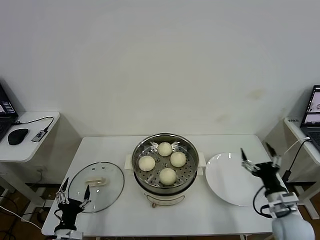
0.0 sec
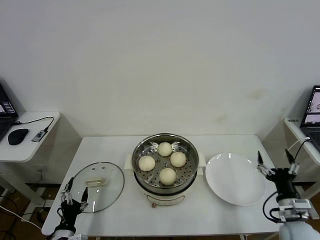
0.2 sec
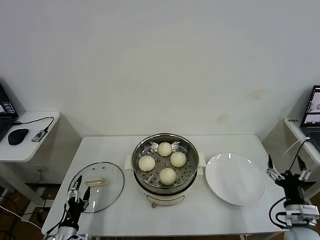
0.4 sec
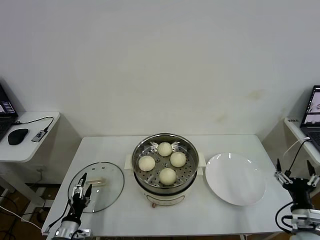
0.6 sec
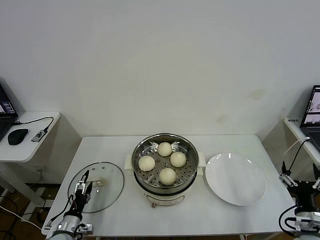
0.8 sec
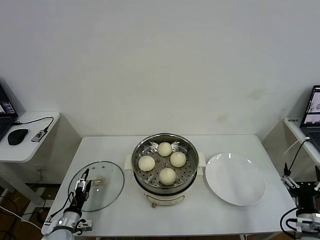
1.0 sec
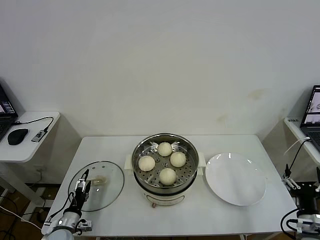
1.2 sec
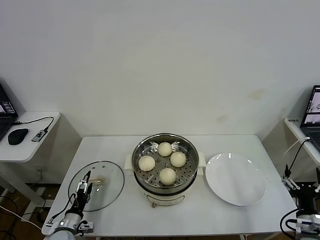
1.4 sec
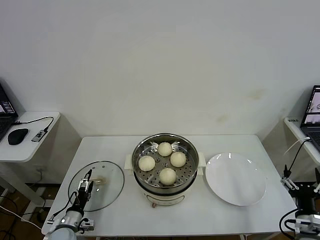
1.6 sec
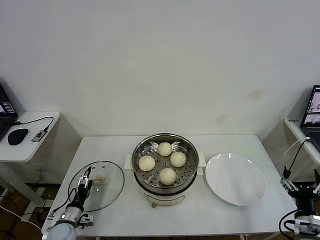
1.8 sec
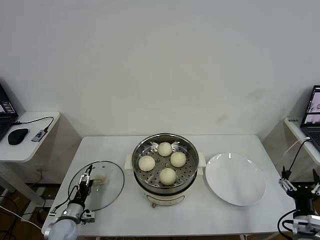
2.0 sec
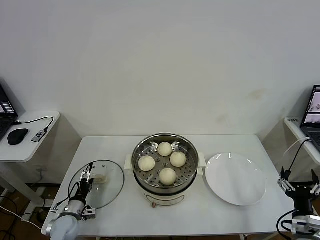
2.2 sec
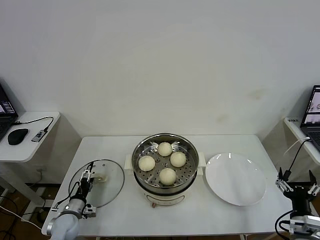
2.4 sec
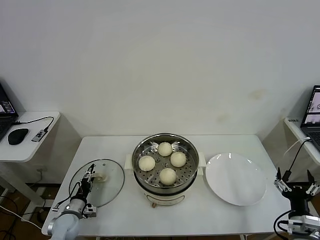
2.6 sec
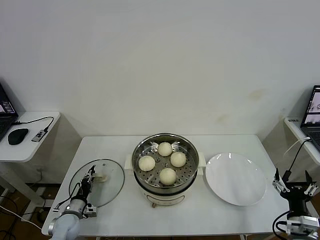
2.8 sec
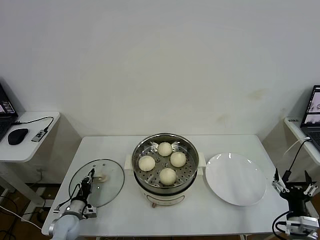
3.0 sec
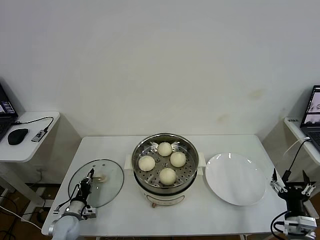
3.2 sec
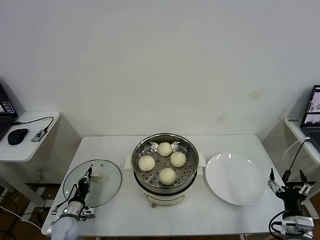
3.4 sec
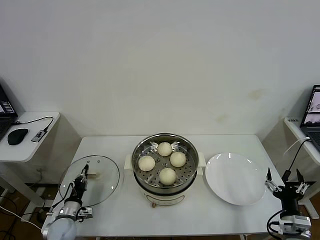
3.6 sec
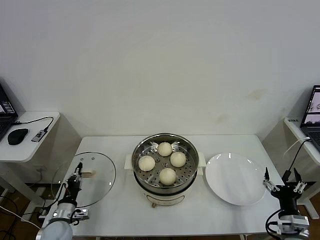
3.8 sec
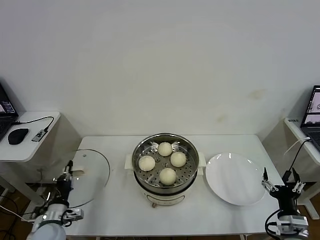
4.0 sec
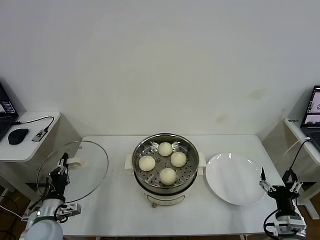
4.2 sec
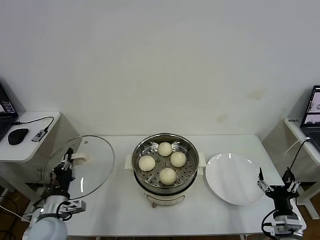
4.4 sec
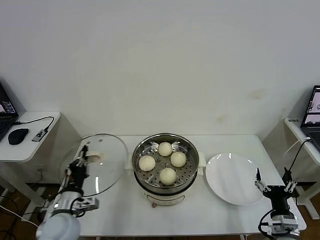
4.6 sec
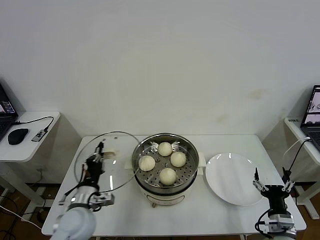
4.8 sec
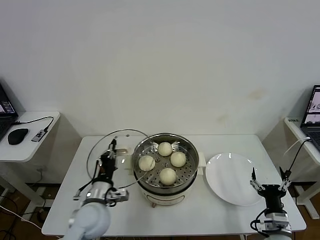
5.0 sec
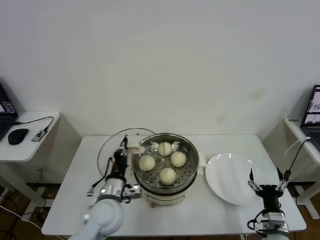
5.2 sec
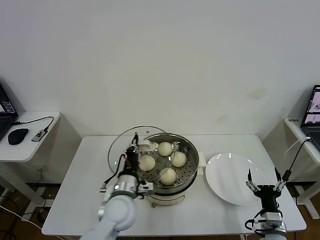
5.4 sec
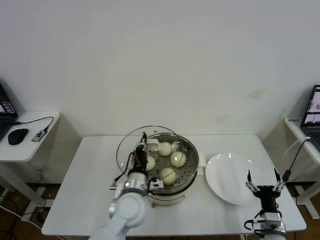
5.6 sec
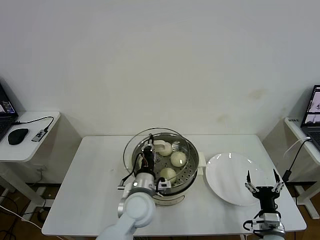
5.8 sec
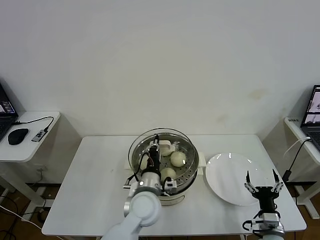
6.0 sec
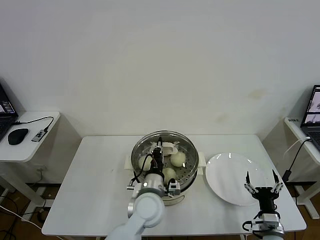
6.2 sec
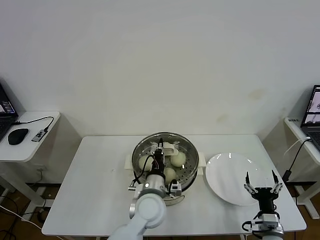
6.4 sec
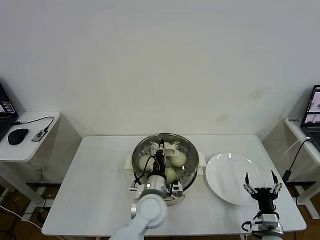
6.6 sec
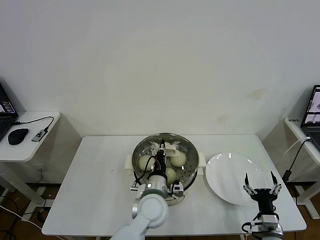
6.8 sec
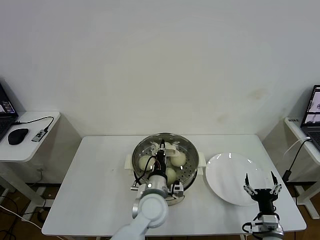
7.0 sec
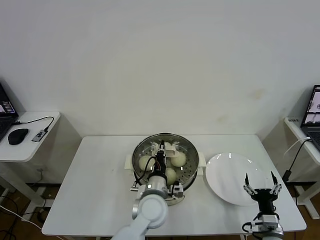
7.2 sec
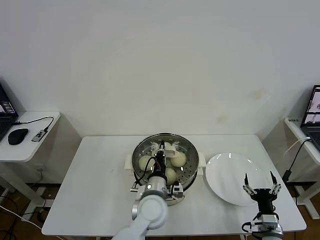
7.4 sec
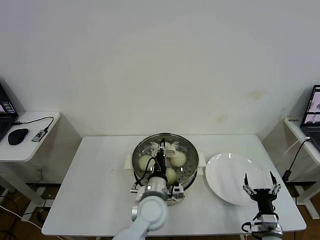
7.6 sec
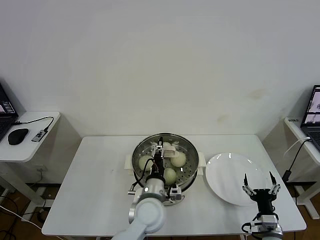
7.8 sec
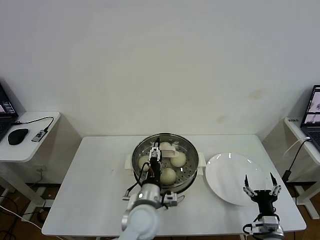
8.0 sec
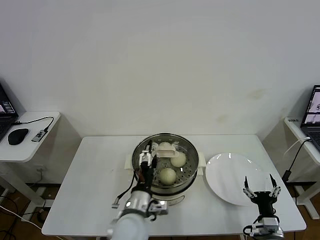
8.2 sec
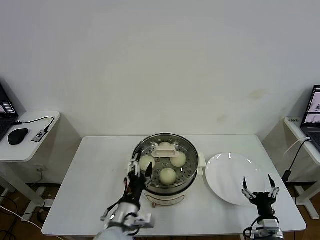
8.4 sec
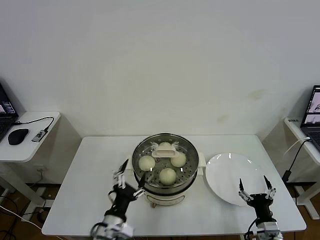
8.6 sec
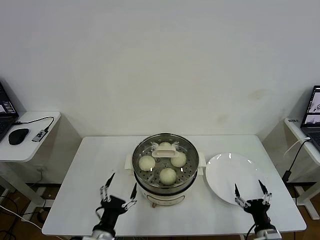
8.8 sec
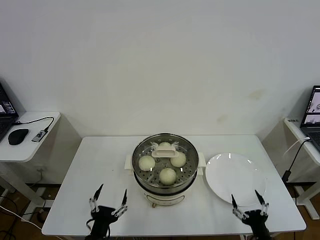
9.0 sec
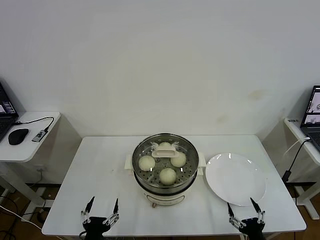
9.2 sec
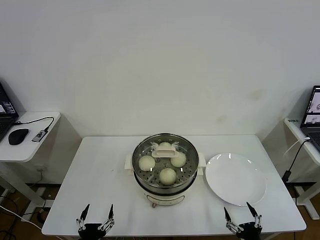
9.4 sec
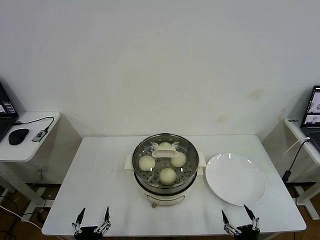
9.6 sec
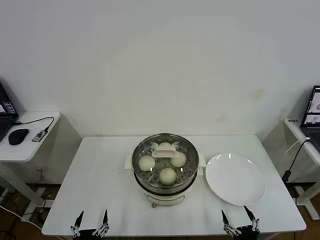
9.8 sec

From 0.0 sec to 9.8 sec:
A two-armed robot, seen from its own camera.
Task of the whole recording: take steamed baozi put them in steamer then cover it.
Step, from 0.0 sec to 3.4 sec: Grasp the pot lid with left gripper.
Step, from 3.6 sec to 8.2 sec: Place the pot lid on the steamer with left gripper.
From 0.0 sec to 1.4 sec: The right gripper moves backward, about 5 cm, while the left gripper heads forward and downward, covering approximately 10 cm.
From 1.4 sec to 2.8 sec: The left gripper travels forward by approximately 5 cm, and closes.
From 2.8 sec to 4.2 sec: The left gripper goes some 15 cm upward and backward, and closes its fingers.
From 4.2 sec to 5.6 sec: The right gripper shifts by some 5 cm. The left gripper goes approximately 25 cm to the right.
From 5.6 sec to 7.0 sec: The left gripper heads to the right, covering some 5 cm.
From 7.0 sec to 8.4 sec: The left gripper goes about 10 cm backward and to the left, and opens its fingers.
From 8.4 sec to 9.8 sec: The left gripper moves backward, to the left and downward, approximately 20 cm, while the right gripper shifts about 10 cm backward.
